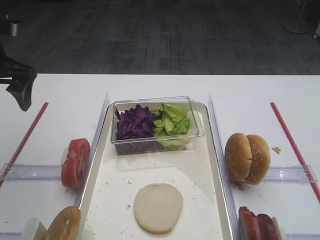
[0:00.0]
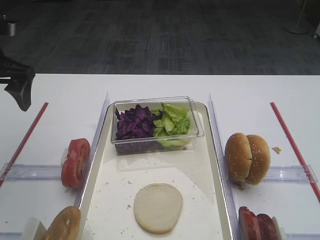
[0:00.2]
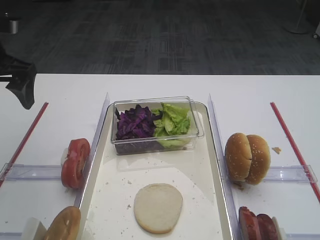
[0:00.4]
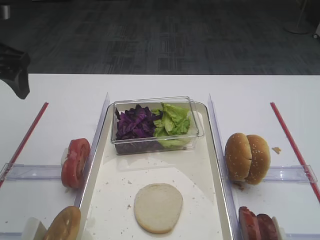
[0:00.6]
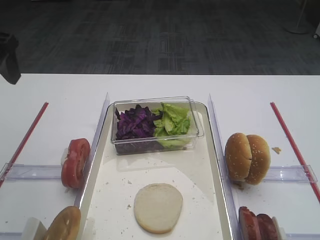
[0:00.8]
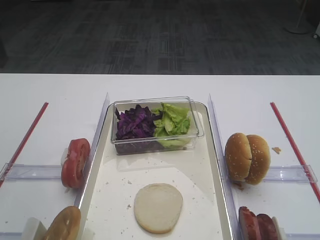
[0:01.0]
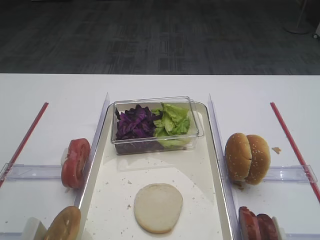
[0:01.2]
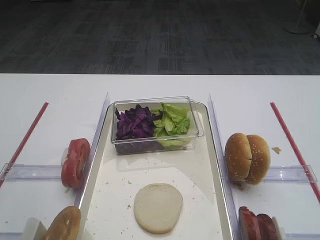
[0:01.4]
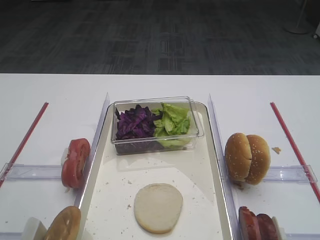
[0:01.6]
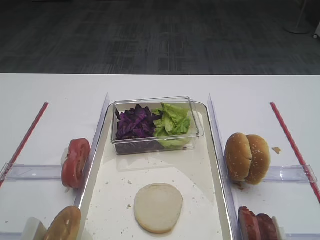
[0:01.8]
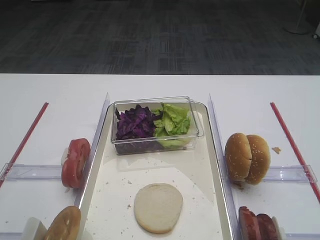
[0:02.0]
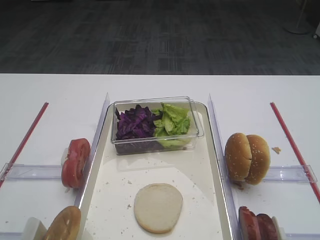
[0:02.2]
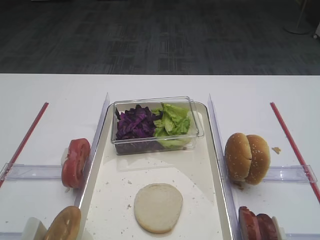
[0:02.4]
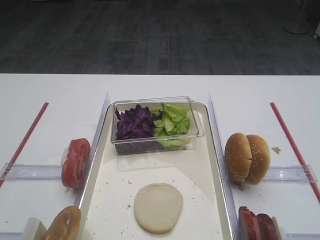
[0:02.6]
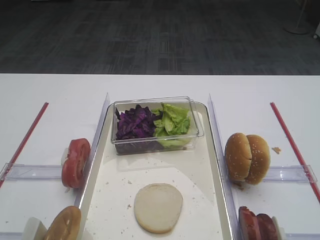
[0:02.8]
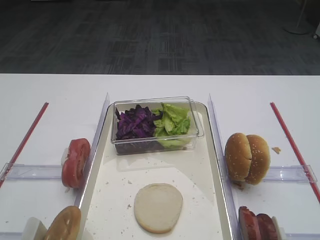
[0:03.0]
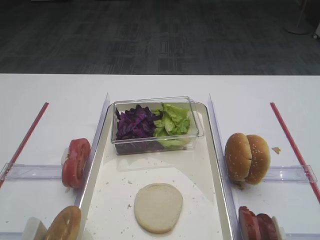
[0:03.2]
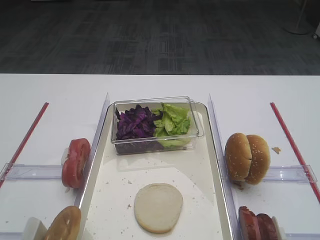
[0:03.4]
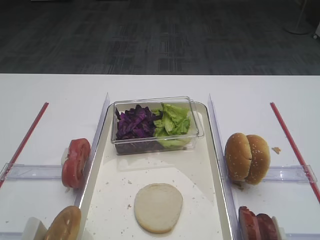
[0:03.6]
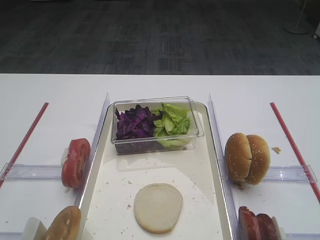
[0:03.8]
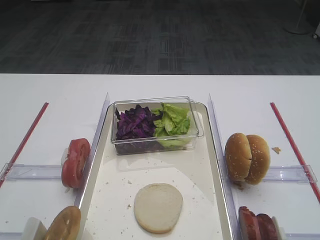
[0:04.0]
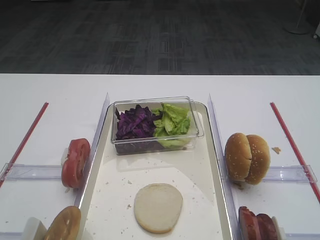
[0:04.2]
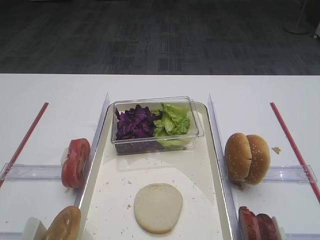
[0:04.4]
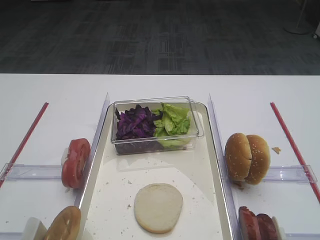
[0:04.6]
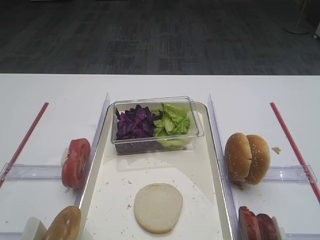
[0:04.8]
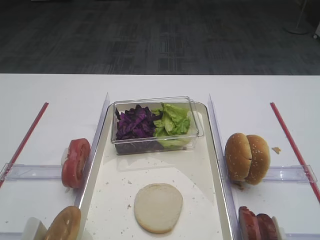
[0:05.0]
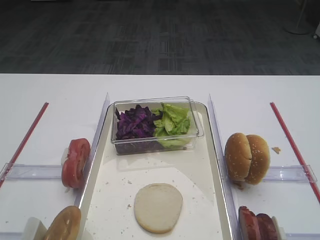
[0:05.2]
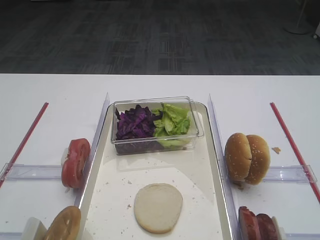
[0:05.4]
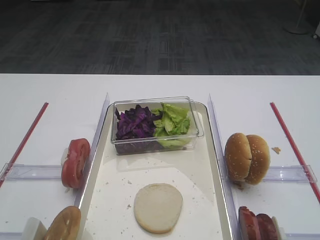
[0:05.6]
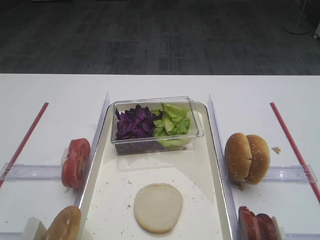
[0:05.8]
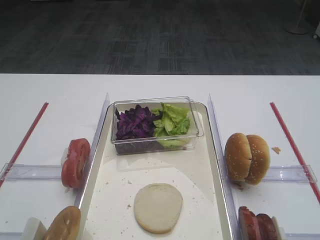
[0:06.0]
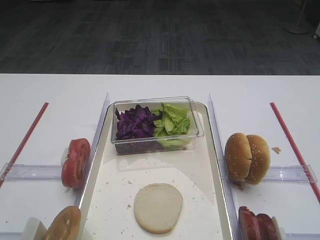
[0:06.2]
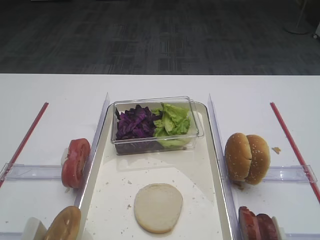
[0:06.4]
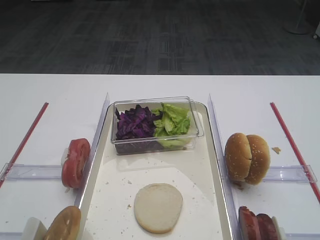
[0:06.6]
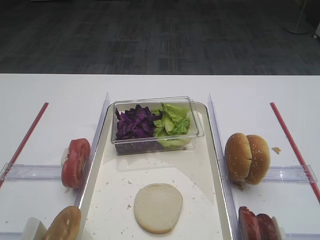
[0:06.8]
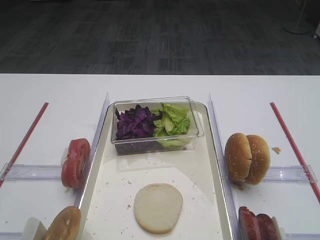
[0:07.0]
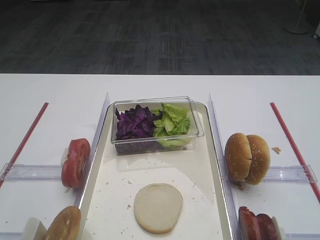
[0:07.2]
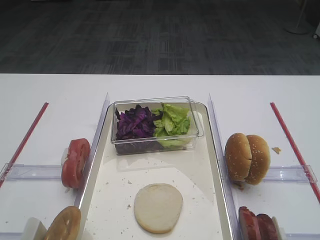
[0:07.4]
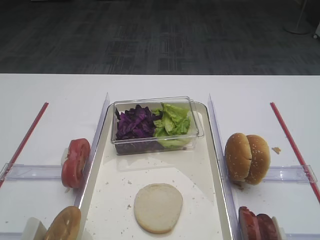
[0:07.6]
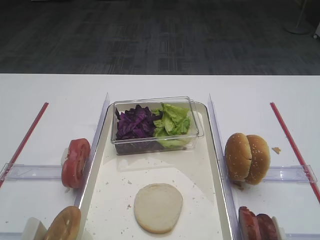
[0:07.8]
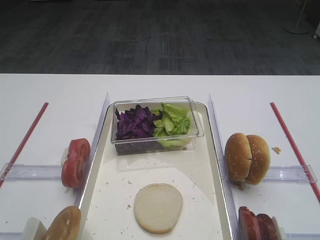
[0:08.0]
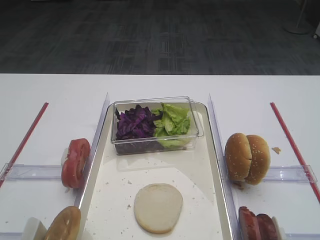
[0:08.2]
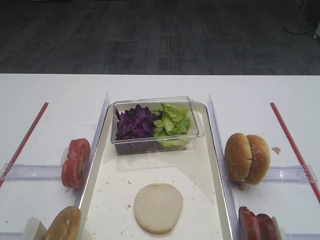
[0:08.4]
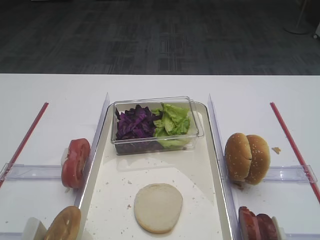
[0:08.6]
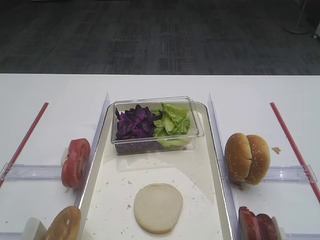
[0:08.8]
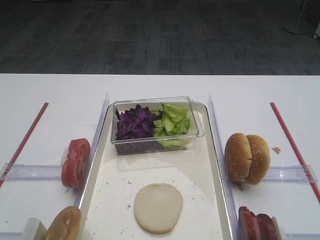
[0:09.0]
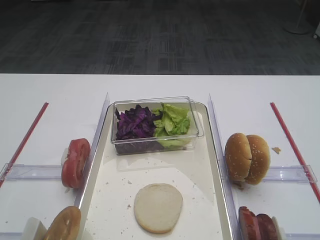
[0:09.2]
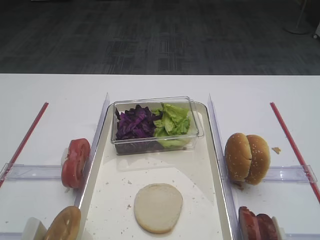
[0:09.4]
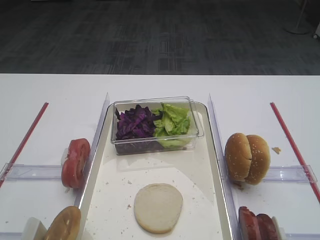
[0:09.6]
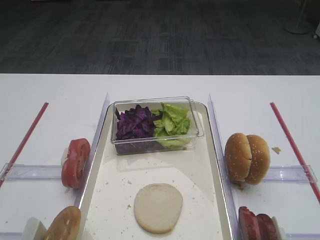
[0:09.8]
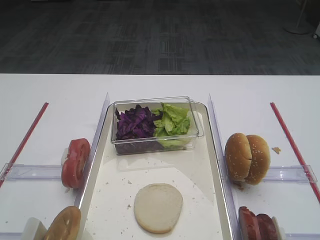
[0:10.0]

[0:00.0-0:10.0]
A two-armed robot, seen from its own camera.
0:00.0 to 0:01.4: The left gripper moves backward and upward, approximately 20 cm.
0:05.8 to 0:08.6: Both grippers stay put.

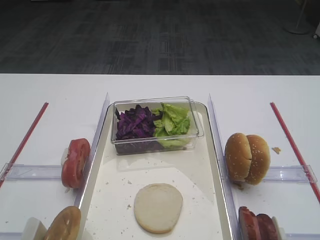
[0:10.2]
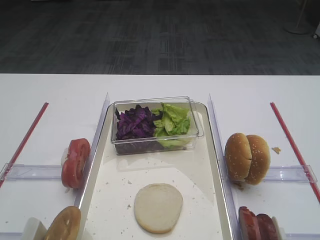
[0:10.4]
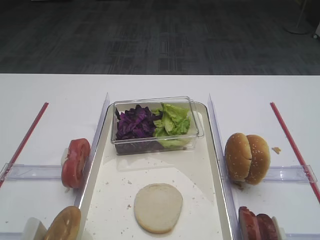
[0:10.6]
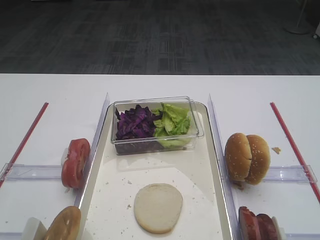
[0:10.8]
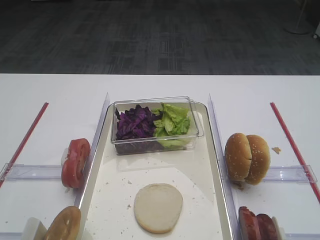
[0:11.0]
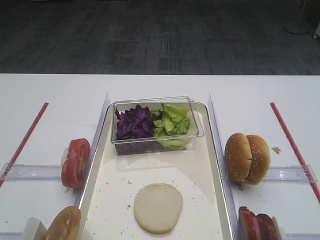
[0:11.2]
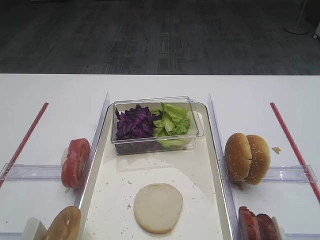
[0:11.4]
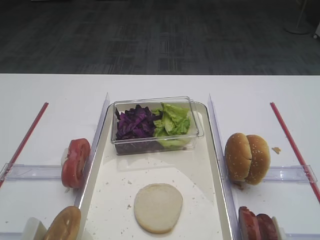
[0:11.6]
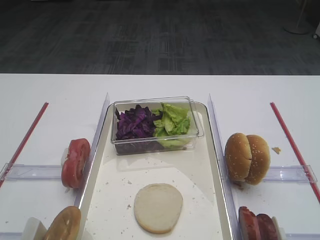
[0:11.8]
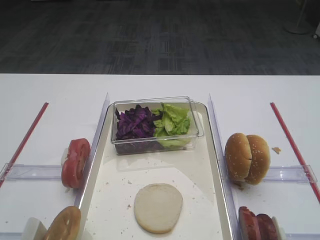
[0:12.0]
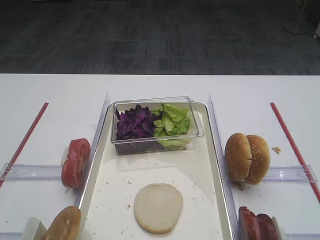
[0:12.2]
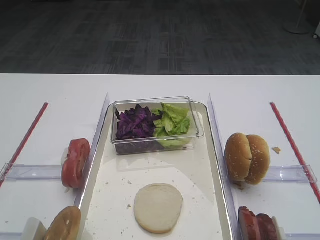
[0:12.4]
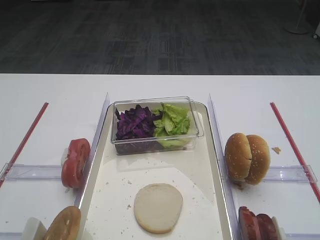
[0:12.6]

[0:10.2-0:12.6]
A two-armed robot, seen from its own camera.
0:11.4 to 0:12.6: Neither gripper changes place.

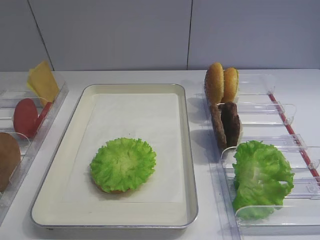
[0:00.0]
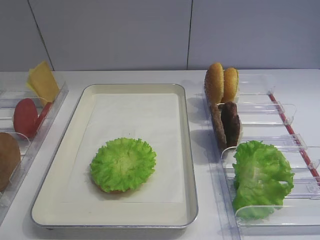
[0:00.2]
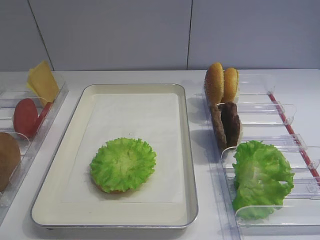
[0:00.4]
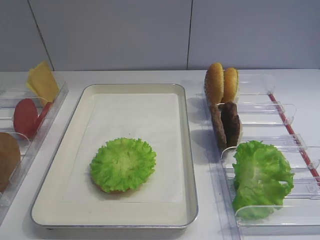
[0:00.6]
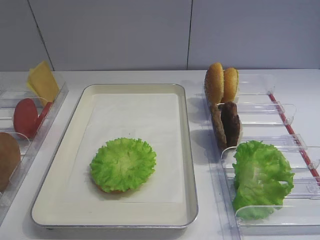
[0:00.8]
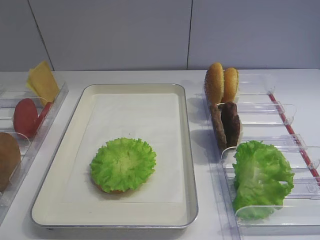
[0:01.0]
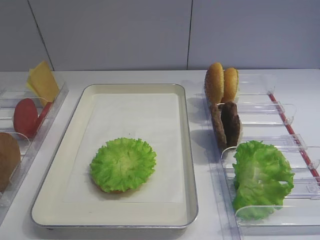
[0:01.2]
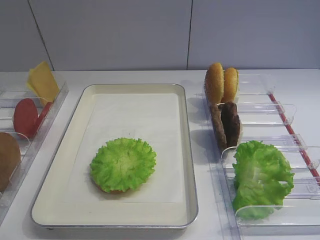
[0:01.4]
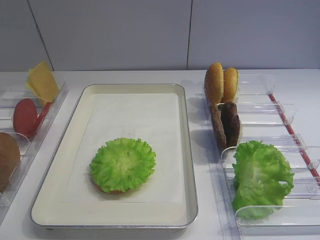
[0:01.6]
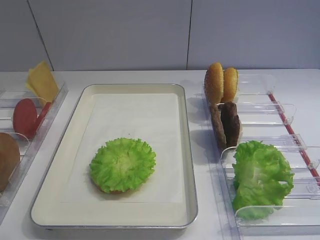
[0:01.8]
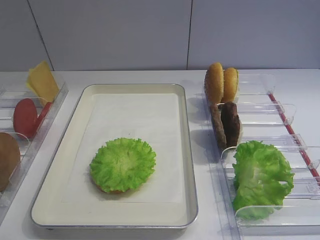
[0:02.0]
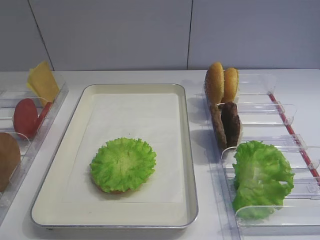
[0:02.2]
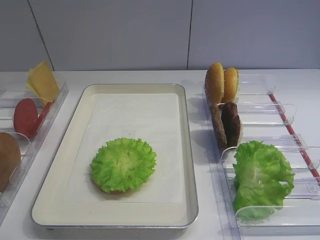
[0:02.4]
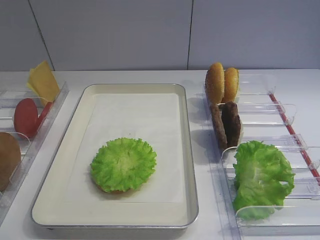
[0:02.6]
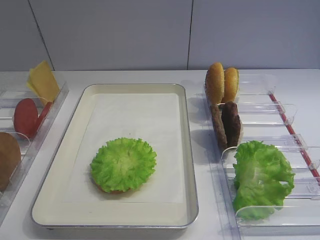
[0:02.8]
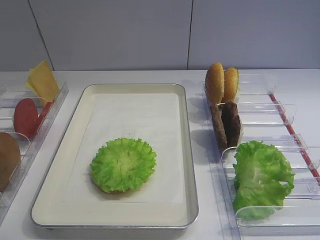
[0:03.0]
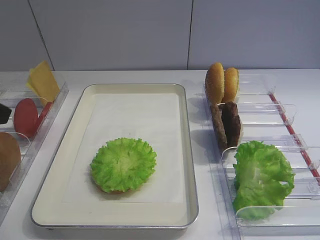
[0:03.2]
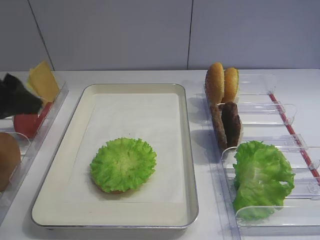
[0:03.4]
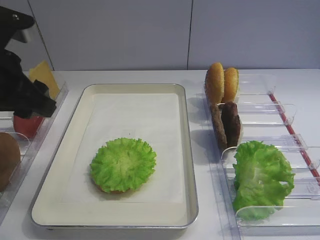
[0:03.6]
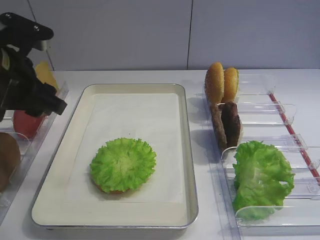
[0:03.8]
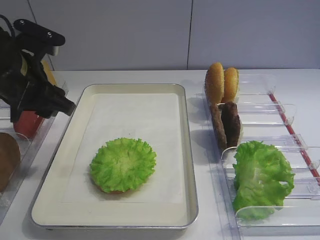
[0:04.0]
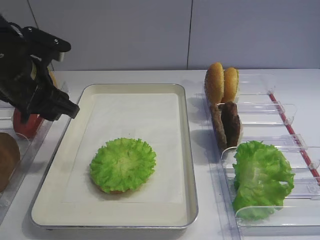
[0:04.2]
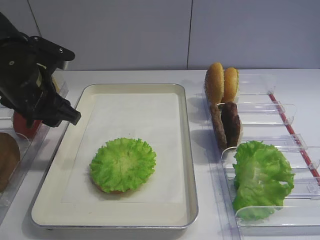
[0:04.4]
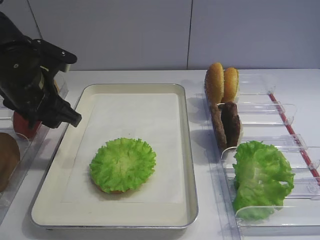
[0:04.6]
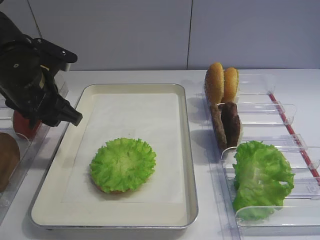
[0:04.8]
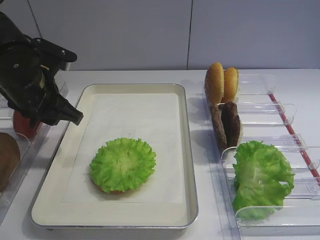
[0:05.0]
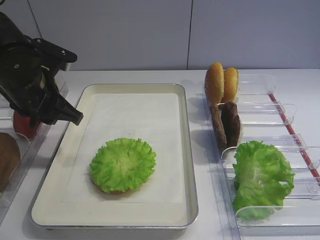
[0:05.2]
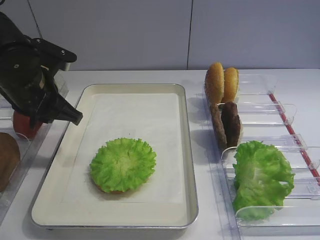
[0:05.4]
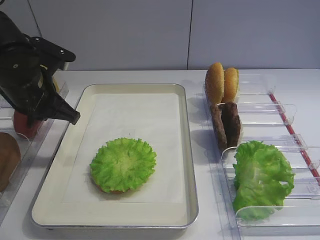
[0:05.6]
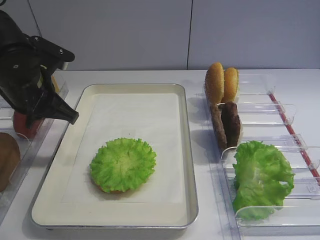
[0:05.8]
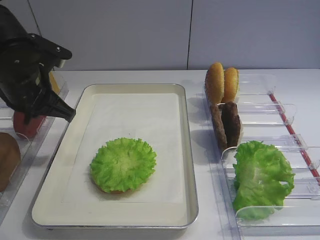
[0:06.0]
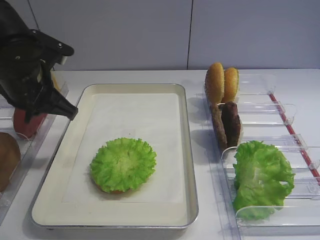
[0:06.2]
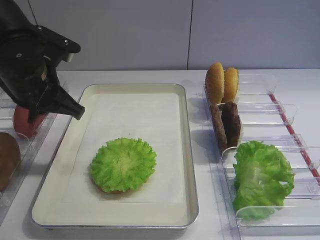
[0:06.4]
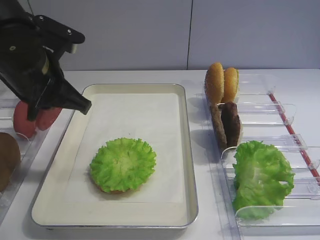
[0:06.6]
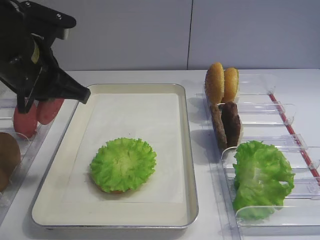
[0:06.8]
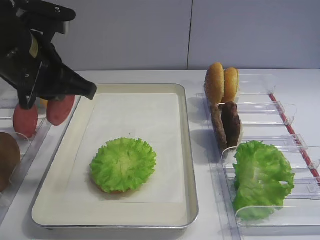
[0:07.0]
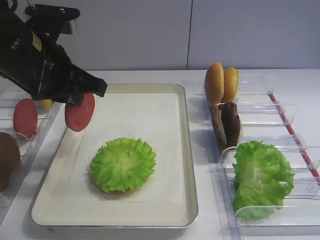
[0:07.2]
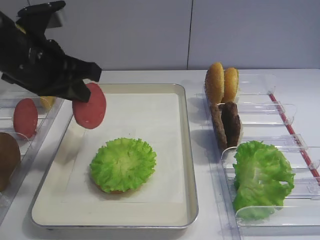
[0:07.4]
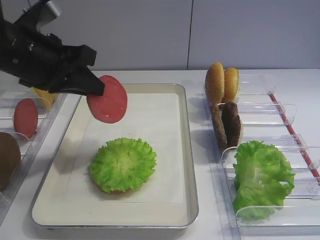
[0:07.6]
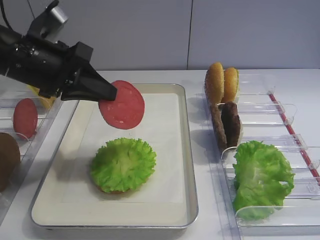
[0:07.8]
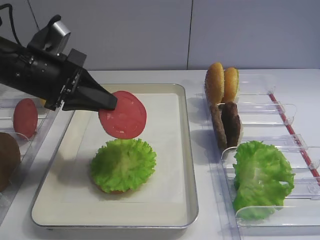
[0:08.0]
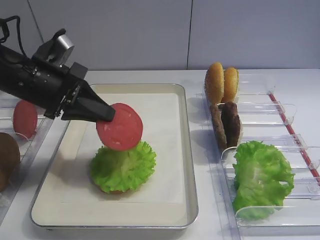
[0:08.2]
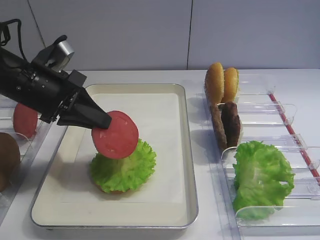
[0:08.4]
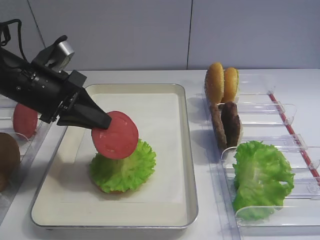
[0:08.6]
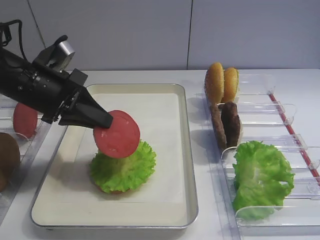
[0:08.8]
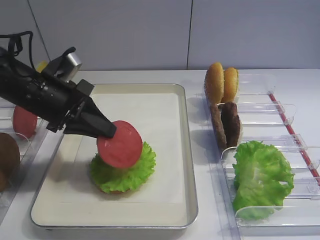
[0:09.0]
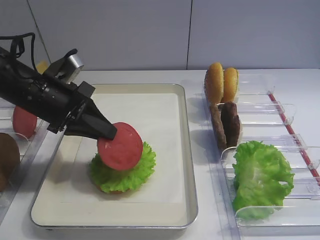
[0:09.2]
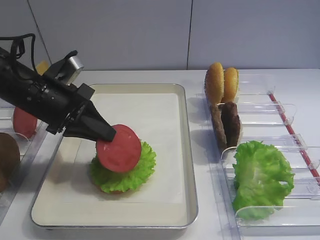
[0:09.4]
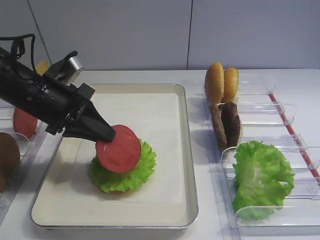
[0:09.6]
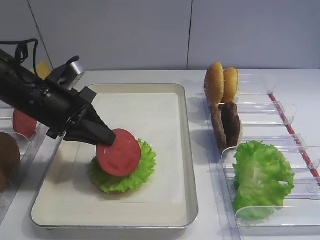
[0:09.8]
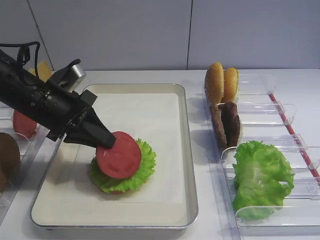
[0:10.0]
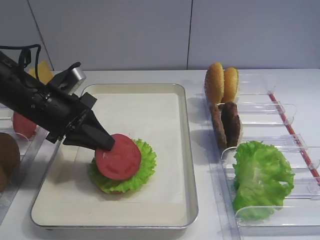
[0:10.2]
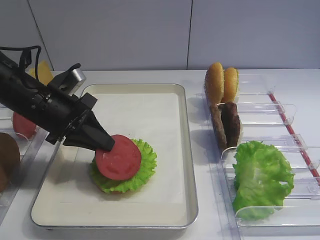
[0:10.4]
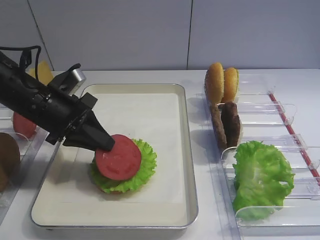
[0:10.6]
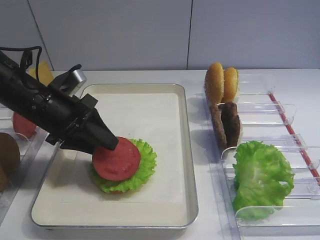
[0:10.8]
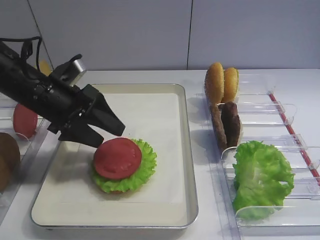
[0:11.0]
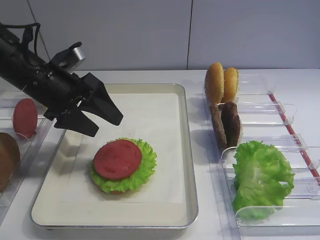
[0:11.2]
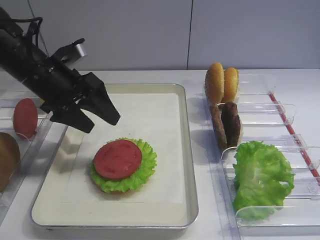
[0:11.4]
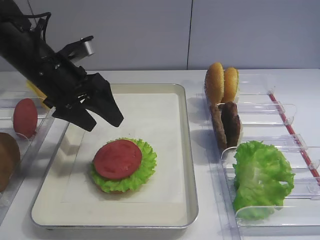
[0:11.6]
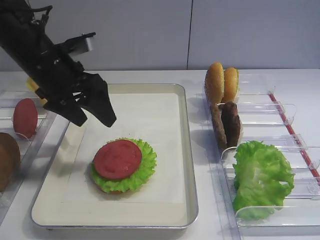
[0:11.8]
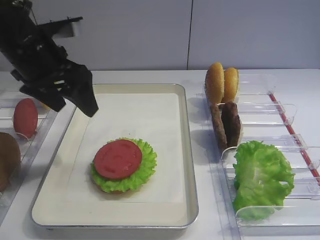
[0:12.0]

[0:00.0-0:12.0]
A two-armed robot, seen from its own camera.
Step, 0:00.0 to 0:06.2: Pick up the tomato slice with the left gripper.
Step, 0:06.4 to 0:11.2: Place the tomato slice on the lettuce leaf with the left gripper.
0:03.0 to 0:04.4: The left gripper shifts approximately 20 cm forward, downward and to the right.
0:04.4 to 0:06.0: The left gripper closes.
0:06.0 to 0:07.6: The left gripper is displaced upward by roughly 5 cm.
0:07.6 to 0:09.0: The left gripper goes roughly 5 cm downward.
0:09.0 to 0:10.4: The grippers stay close to where they were, moving slightly.
0:10.4 to 0:12.0: The left gripper travels upward by roughly 10 cm, and opens.
